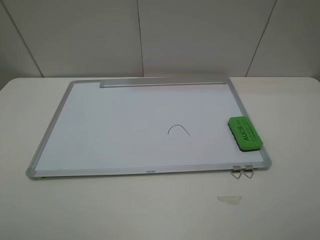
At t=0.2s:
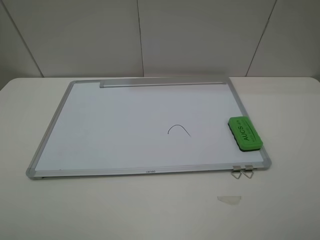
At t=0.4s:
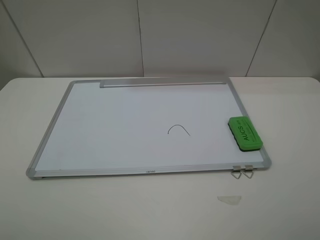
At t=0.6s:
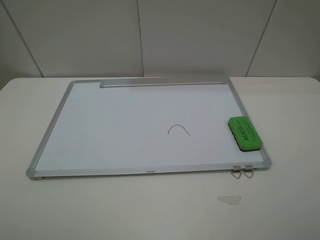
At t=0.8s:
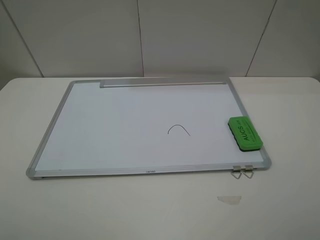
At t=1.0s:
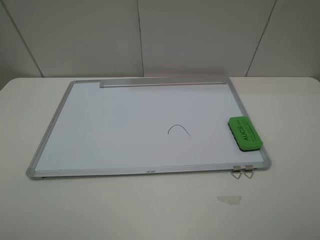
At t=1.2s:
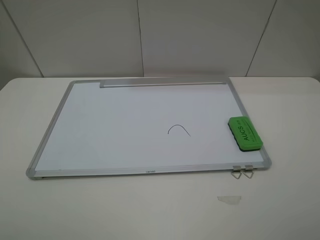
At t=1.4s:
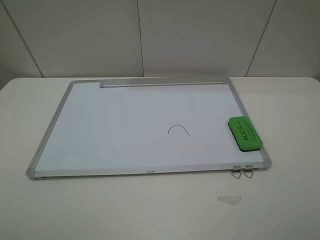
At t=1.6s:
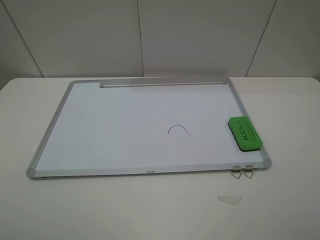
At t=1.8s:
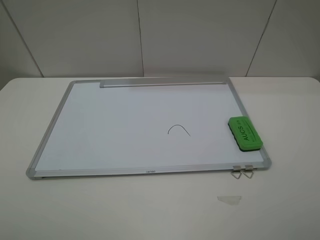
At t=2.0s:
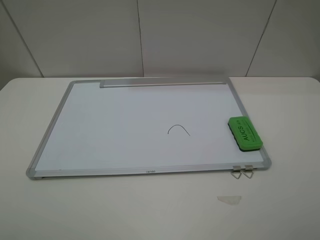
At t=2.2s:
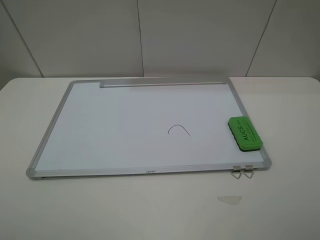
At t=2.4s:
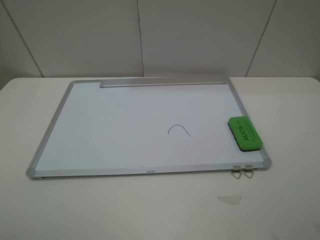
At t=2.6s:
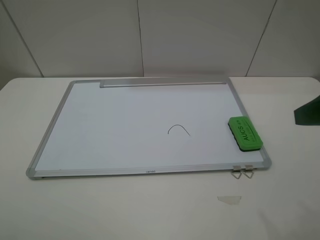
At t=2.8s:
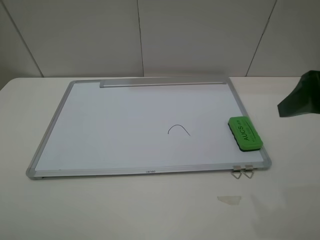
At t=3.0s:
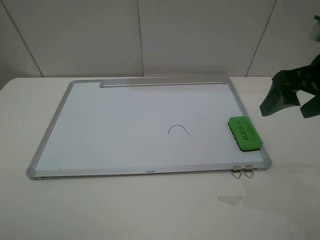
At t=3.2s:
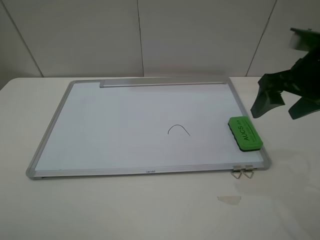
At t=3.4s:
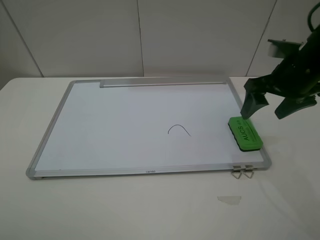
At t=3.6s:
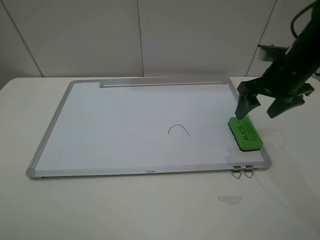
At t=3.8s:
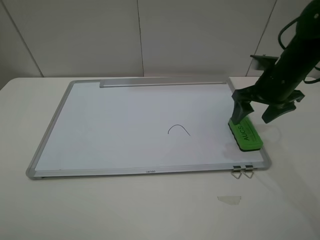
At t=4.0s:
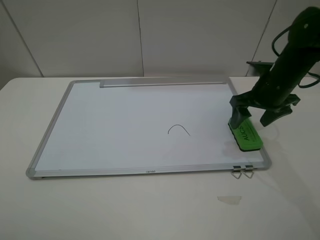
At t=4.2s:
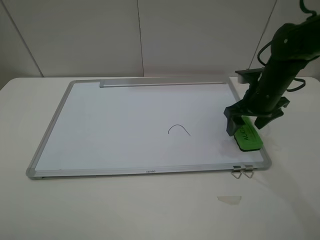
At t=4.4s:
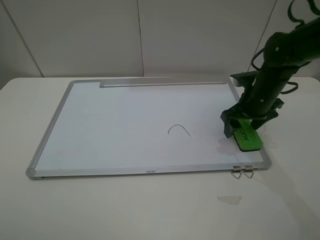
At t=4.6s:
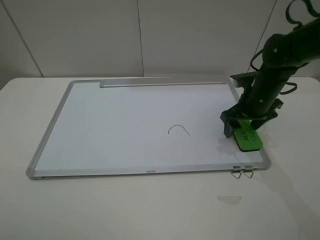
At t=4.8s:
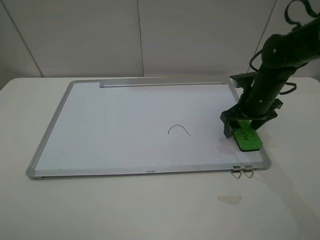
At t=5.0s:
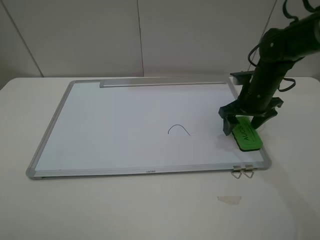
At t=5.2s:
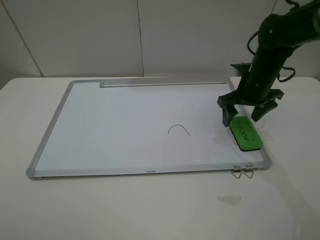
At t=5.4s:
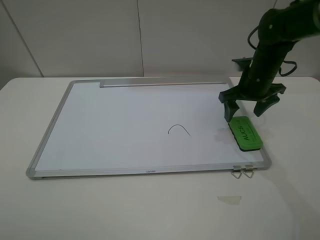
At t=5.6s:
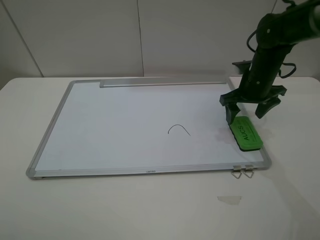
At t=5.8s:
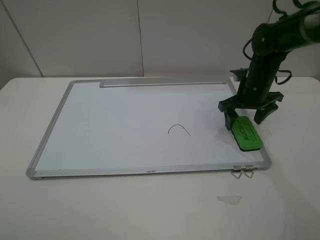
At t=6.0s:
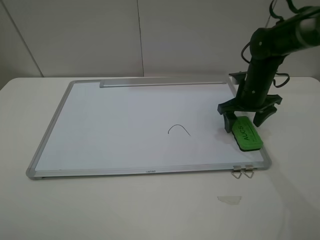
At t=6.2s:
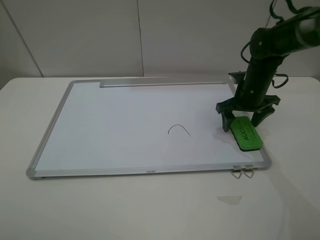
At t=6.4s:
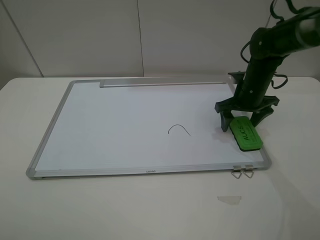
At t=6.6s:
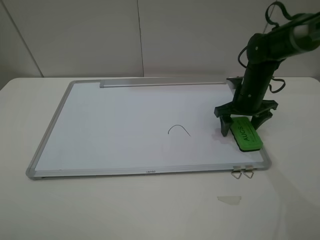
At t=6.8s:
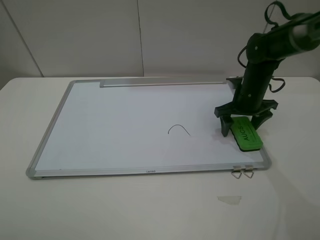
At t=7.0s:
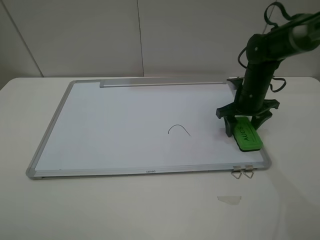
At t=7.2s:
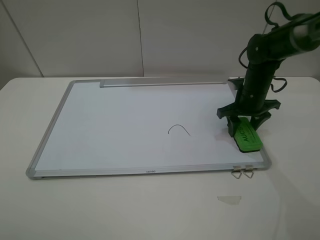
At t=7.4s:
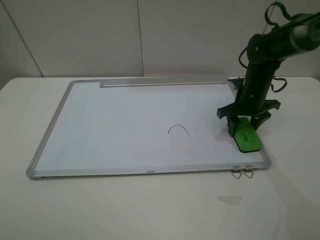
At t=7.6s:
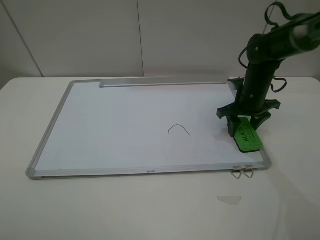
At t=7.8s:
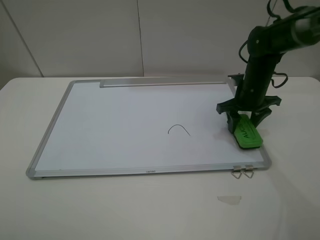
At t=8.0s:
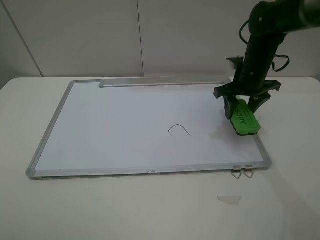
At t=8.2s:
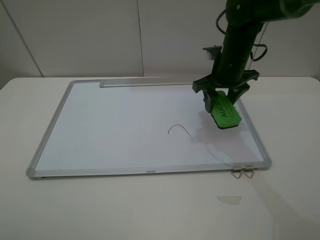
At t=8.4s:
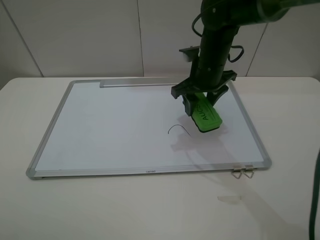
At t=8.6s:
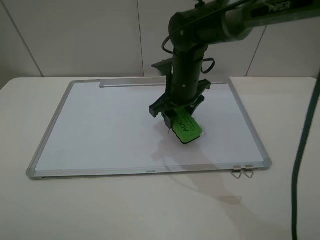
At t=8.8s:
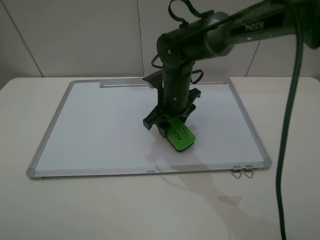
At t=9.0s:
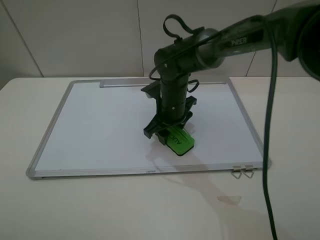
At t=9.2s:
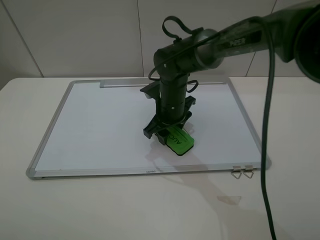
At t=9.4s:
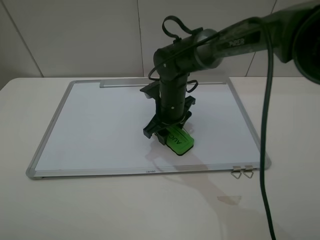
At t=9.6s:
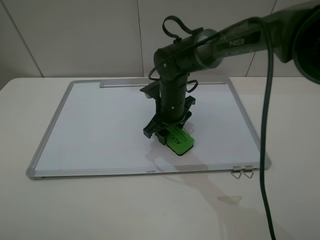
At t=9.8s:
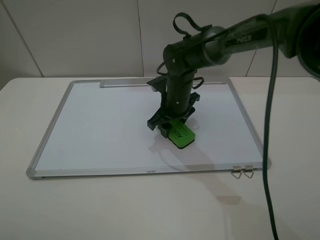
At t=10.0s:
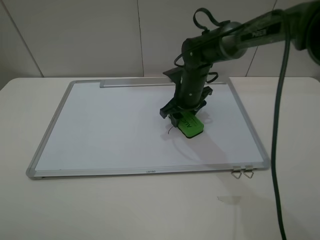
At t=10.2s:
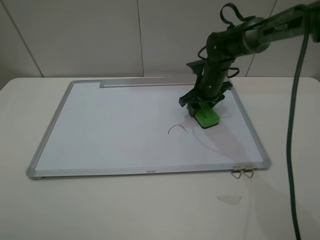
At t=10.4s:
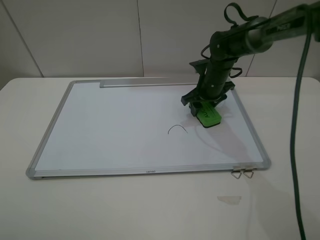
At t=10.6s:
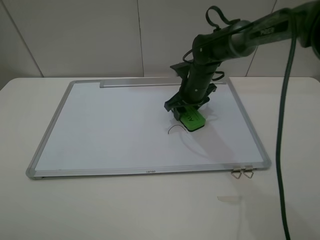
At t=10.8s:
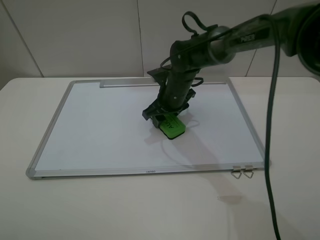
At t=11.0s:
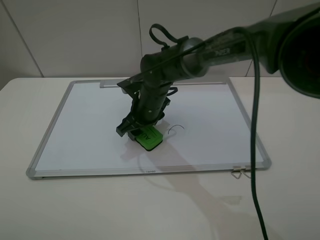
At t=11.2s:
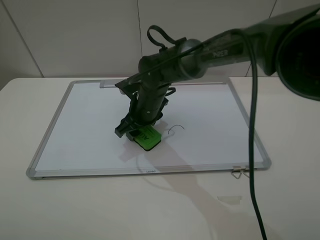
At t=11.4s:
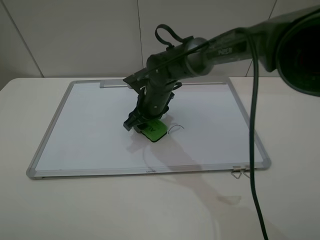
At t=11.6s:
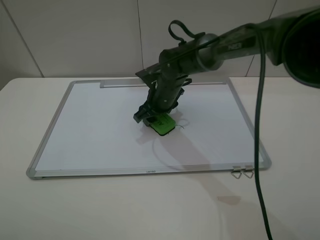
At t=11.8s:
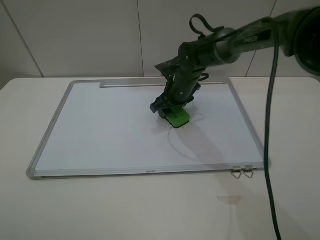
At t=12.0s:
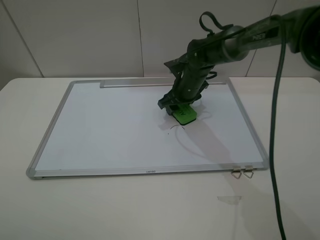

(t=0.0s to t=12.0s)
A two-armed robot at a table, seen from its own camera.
Step, t=0.0s - t=7.6s: Grasp the eraser with the right gripper.
t=0.0s - t=1.6s: Neither gripper changes place.
t=1.6s - t=3.0s: The right gripper moves forward, some 25 cm.
t=3.0s - t=4.4s: The right gripper shifts approximately 20 cm downward and forward.
t=4.4s - t=6.0s: The grippers move only a little.
t=6.0s - t=7.6s: The right gripper closes its fingers.
t=7.6s - t=9.0s: The right gripper moves to the left, roughly 20 cm.
t=9.0s - t=10.4s: The right gripper shifts approximately 15 cm to the right and forward.
t=10.4s - t=12.0s: The right gripper travels to the left and back again, roughly 15 cm each way.

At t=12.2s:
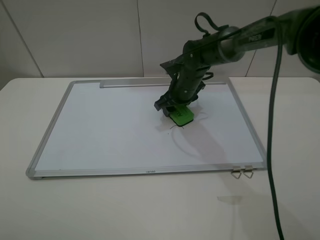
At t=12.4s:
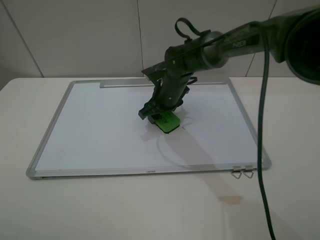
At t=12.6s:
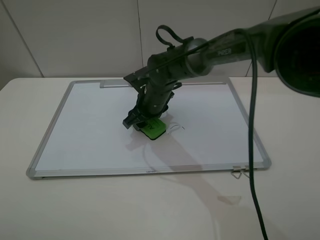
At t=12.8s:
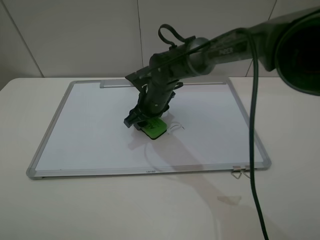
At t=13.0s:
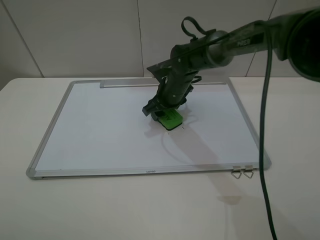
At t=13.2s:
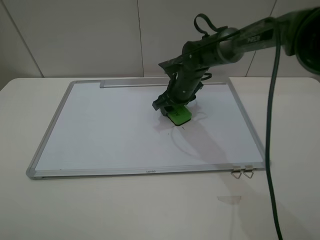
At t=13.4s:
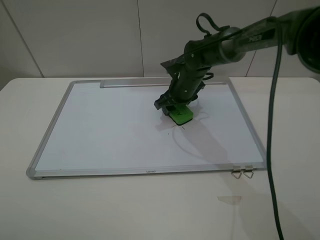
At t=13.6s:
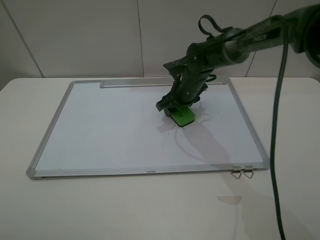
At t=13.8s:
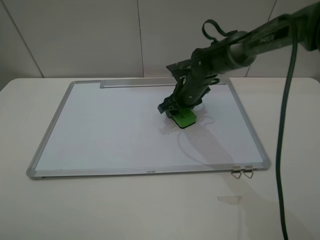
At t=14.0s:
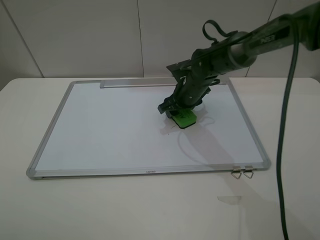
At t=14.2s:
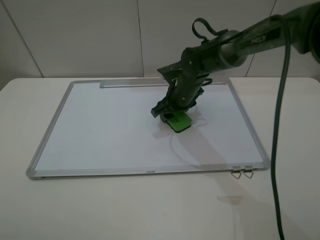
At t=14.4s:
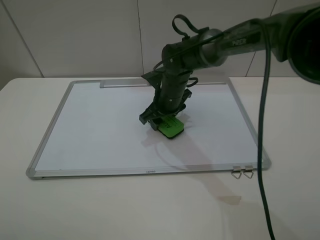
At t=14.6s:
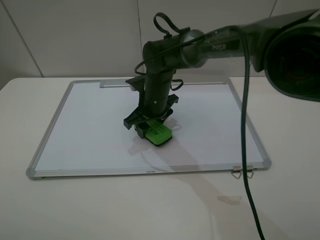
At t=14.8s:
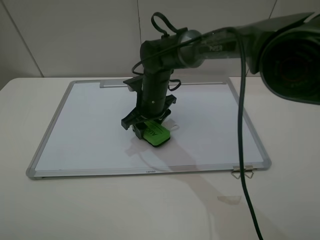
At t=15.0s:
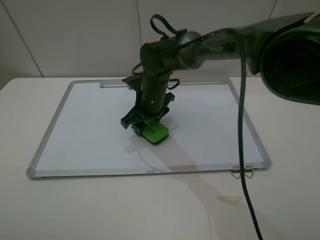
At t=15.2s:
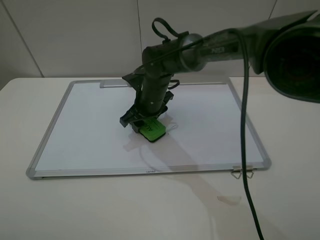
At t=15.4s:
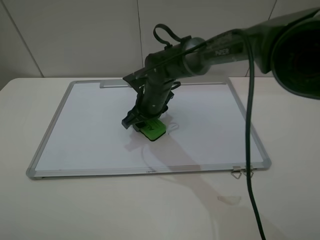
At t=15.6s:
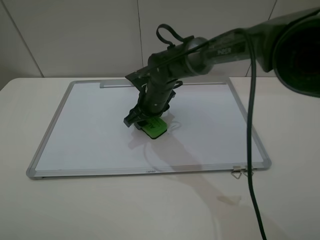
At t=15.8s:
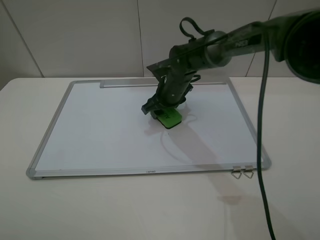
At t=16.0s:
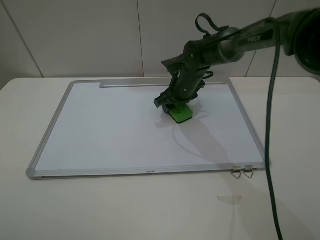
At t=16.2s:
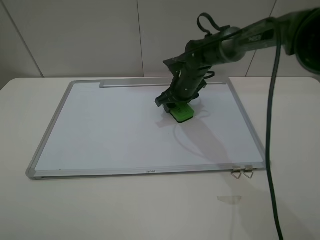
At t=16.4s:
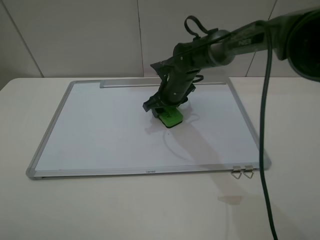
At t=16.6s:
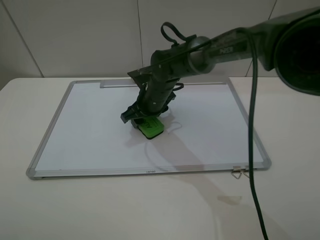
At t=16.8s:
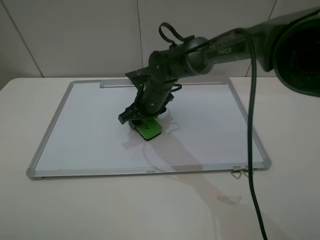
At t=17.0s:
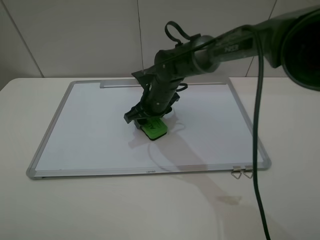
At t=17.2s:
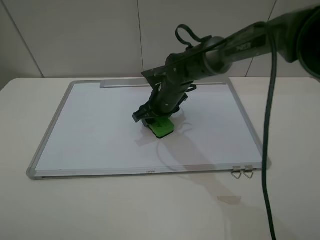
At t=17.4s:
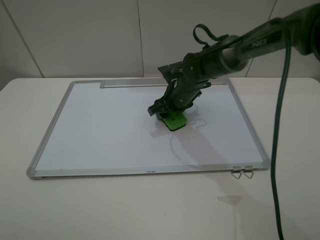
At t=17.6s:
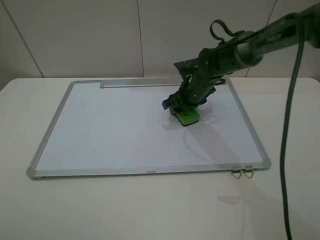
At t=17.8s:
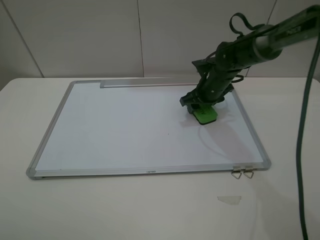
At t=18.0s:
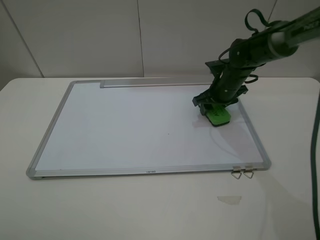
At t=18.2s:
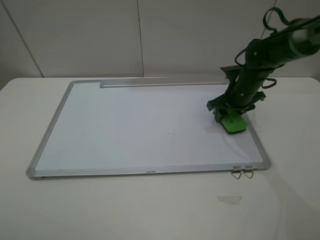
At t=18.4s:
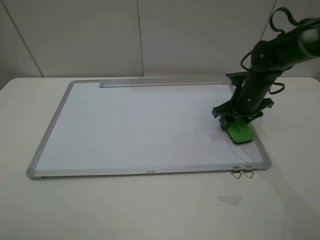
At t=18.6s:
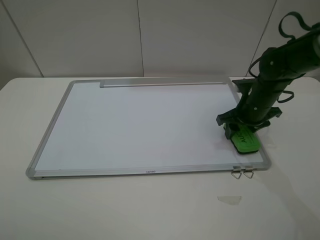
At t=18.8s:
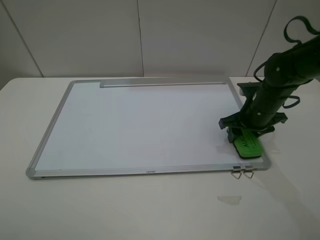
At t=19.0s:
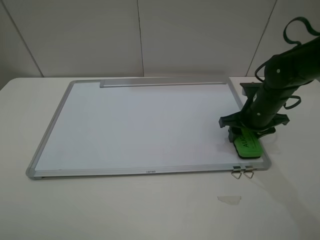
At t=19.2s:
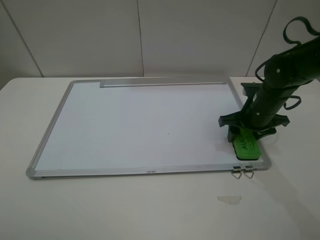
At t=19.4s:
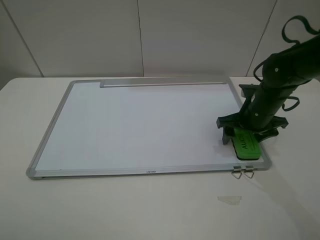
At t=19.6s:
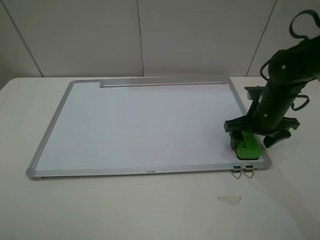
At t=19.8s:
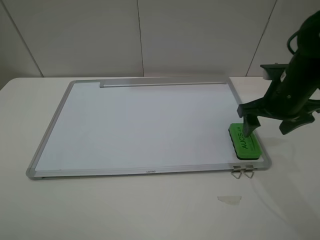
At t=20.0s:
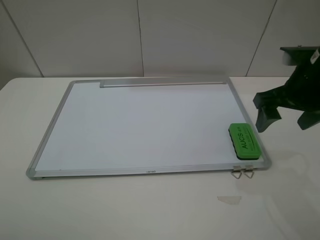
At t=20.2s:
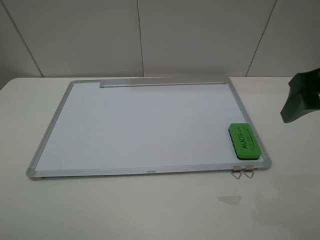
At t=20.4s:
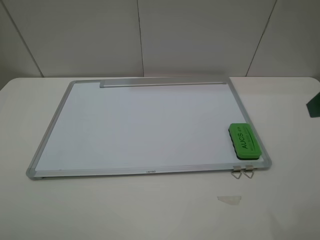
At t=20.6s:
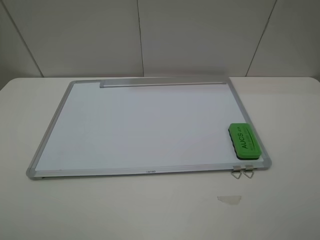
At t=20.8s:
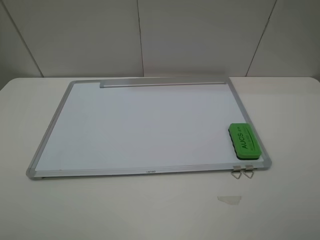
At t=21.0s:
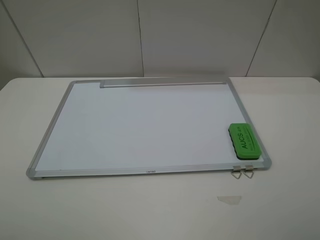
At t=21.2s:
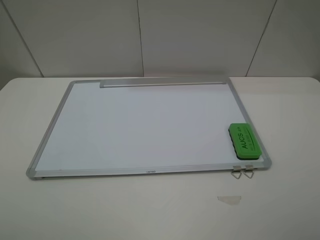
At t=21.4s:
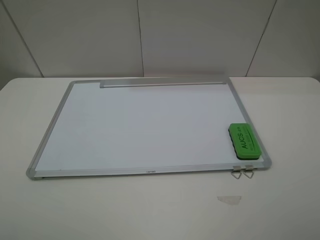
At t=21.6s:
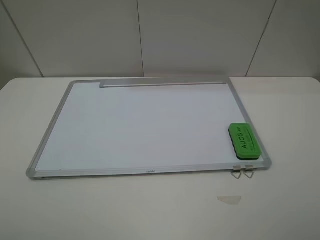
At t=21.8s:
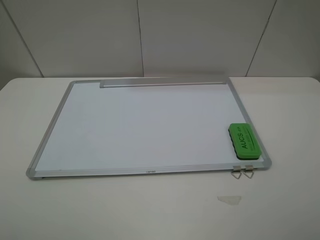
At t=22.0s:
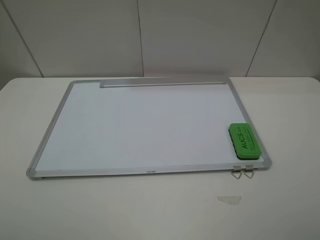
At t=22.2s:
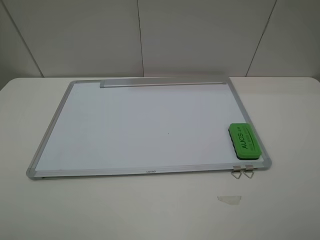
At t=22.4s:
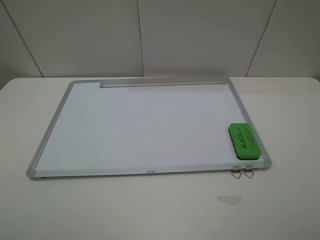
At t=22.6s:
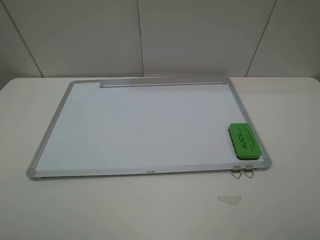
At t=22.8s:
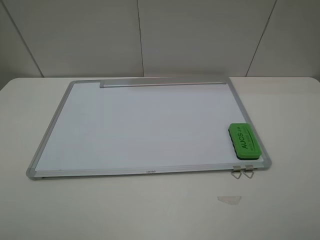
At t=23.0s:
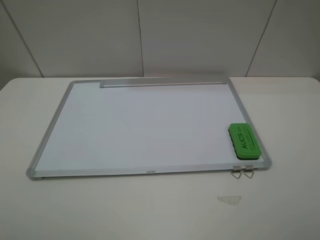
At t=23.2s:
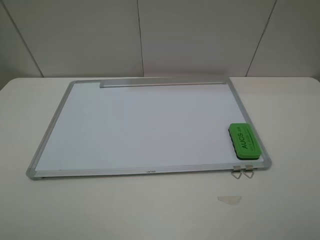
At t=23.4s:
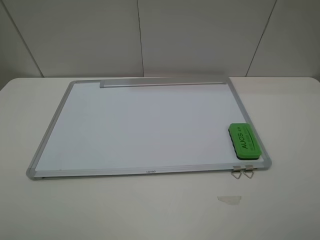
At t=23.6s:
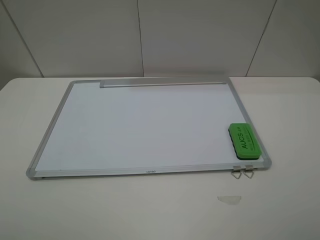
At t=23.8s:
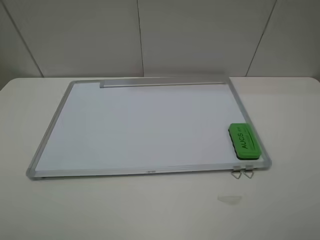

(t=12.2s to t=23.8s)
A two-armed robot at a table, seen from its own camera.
Step, t=12.2s - t=18.0s: Grasp the eraser and wipe the blackboard with the right gripper.
Step, t=18.2s - t=19.6s: Place the eraser with the right gripper.
t=12.2s - t=13.6s: The right gripper reaches about 10 cm to the left, then returns.
t=13.6s - t=15.0s: The right gripper is displaced to the left by approximately 10 cm.
t=15.0s - t=16.6s: The right gripper travels to the right and back again, approximately 10 cm each way.
t=16.6s - t=18.0s: The right gripper shifts some 20 cm to the right.
t=18.0s - t=19.4s: The right gripper heads backward, covering some 10 cm, and opens up.
t=19.4s - t=21.0s: The right gripper goes about 35 cm backward and upward.
t=22.4s - t=23.8s: Neither gripper changes place.
